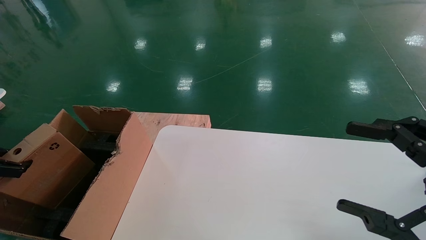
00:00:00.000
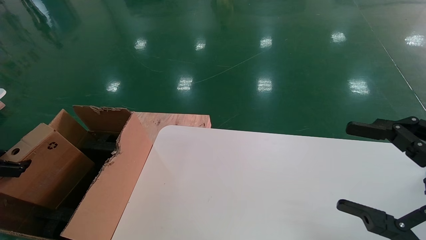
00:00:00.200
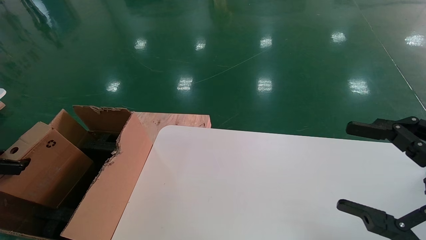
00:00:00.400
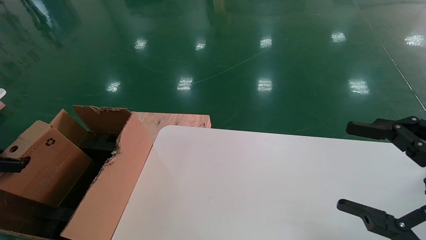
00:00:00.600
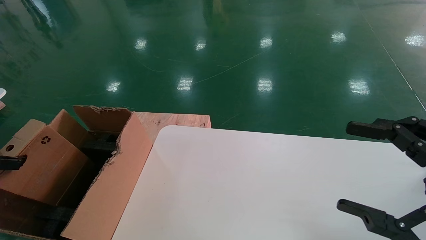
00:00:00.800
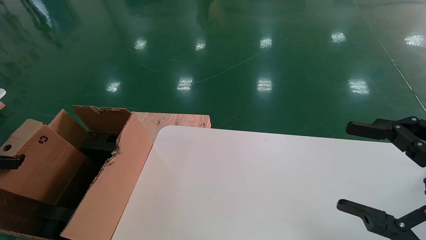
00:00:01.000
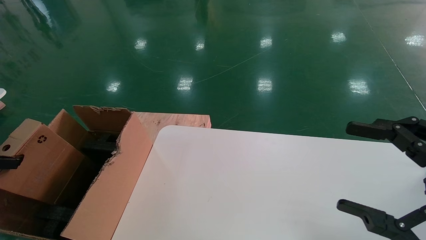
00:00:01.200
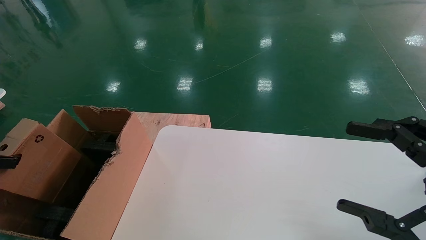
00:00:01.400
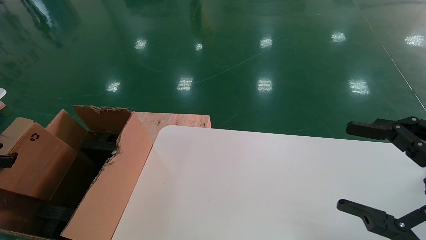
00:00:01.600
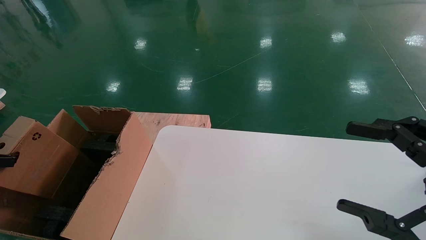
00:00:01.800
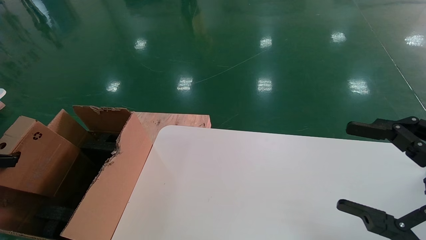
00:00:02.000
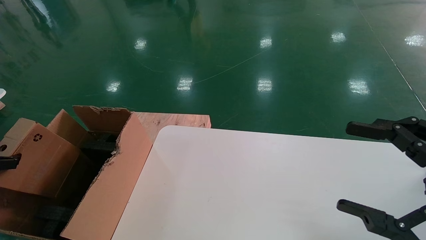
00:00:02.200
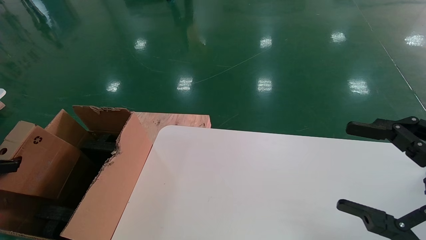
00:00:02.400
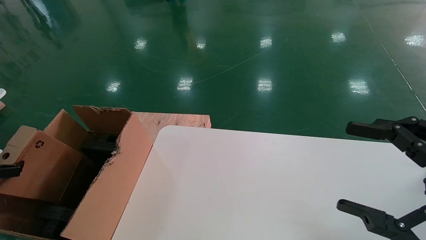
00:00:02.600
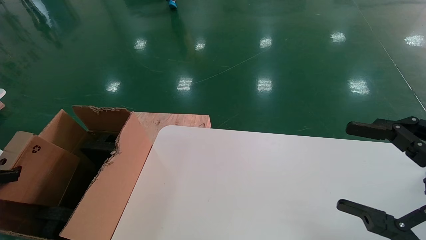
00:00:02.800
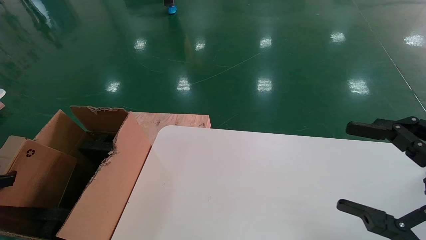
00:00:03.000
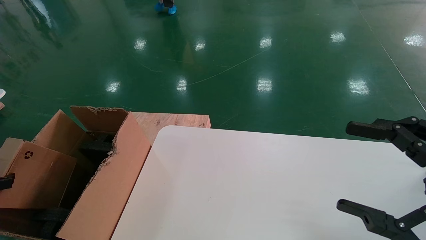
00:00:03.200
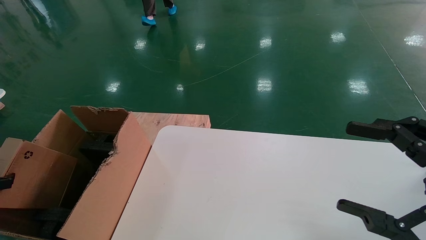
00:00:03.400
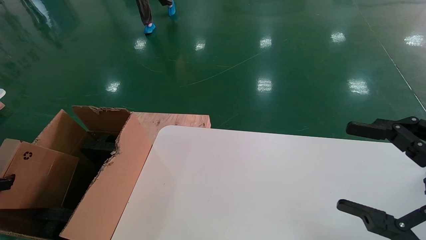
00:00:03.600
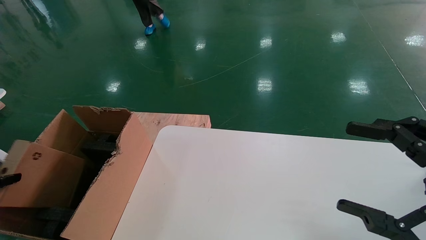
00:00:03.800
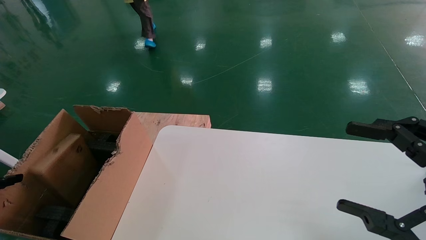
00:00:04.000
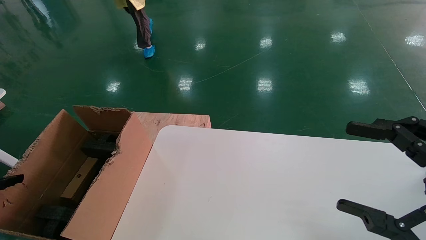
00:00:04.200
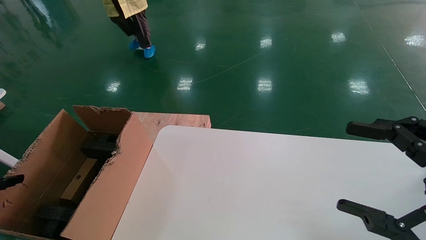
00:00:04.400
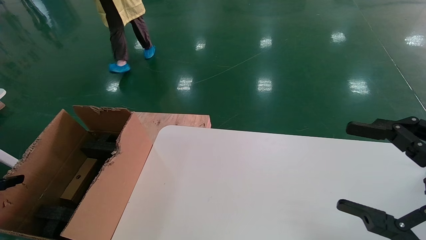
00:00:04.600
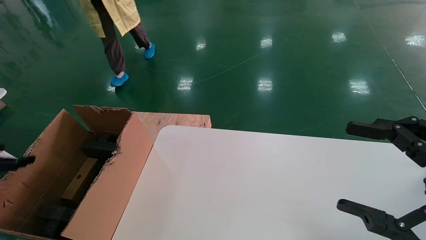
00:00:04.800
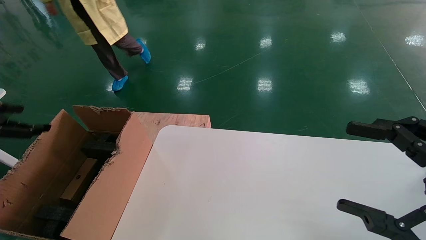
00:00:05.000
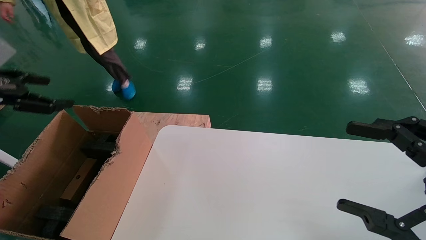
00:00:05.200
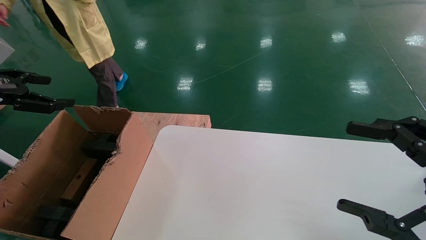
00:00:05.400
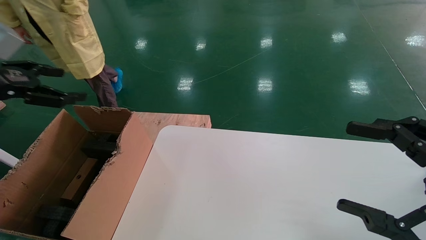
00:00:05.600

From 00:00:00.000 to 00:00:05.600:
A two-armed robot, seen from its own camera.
Task of the whole recording: place the small box on the table into the large box on the left.
Step, from 00:00:00.000 to 00:00:04.400: Place the mouse and the power cord paper box into the container.
From 00:00:00.000 to 00:00:01.400: The grippers move only a little.
From 00:00:01.400 to 00:00:02.800: The left gripper is displaced downward by some 5 cm.
From 00:00:02.800 to 00:00:04.200: The left gripper opens.
From 00:00:04.200 to 00:00:05.600: The left gripper shifts some 25 cm upward, to the right and forward, and opens up.
